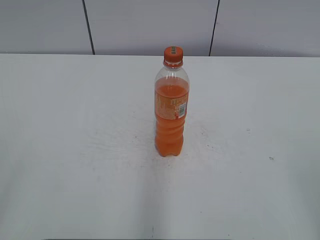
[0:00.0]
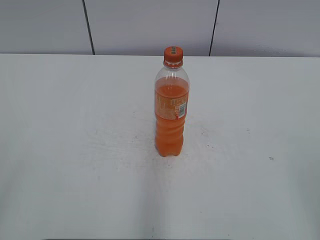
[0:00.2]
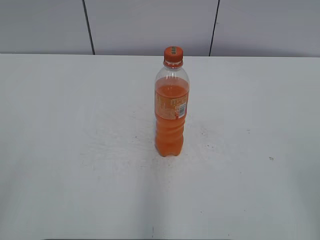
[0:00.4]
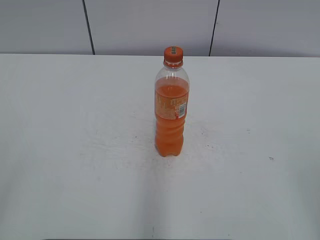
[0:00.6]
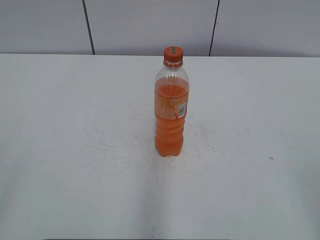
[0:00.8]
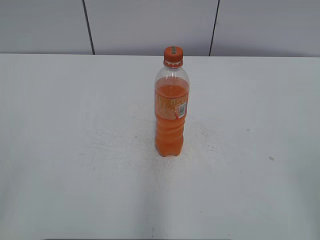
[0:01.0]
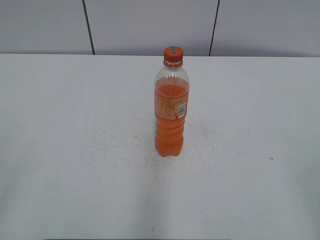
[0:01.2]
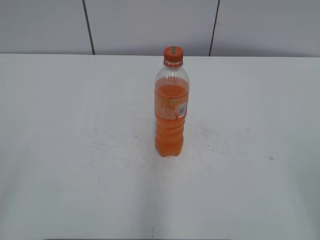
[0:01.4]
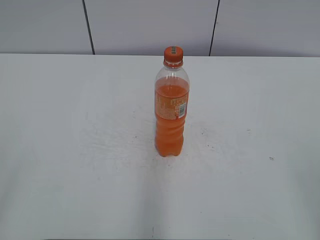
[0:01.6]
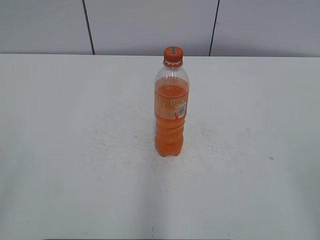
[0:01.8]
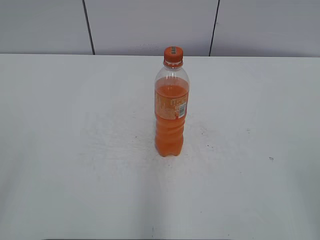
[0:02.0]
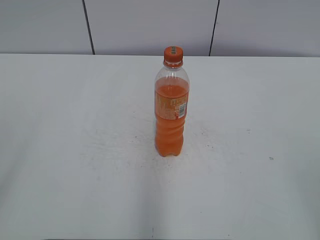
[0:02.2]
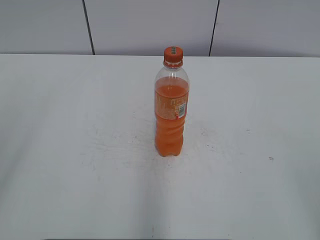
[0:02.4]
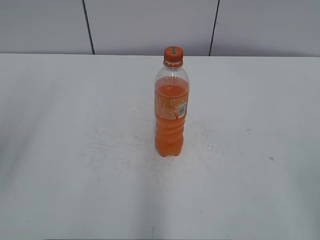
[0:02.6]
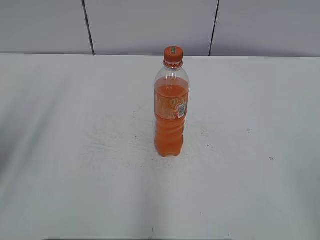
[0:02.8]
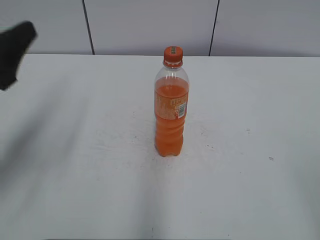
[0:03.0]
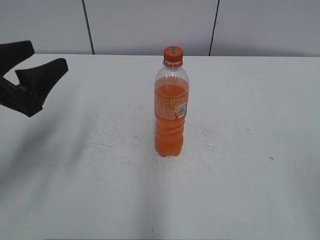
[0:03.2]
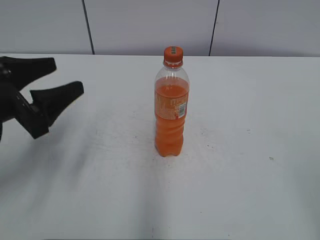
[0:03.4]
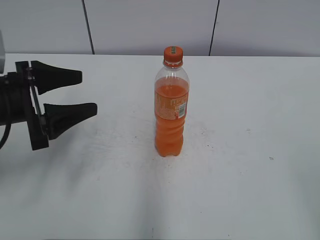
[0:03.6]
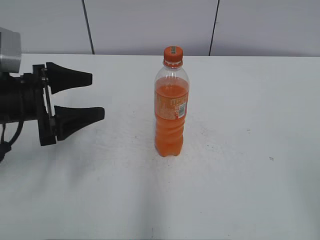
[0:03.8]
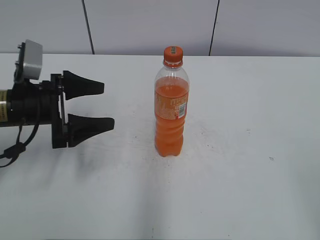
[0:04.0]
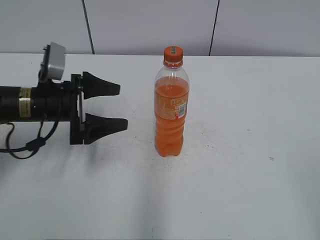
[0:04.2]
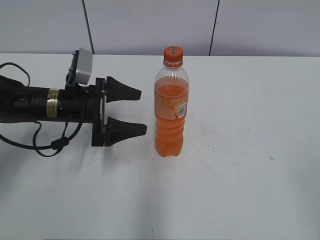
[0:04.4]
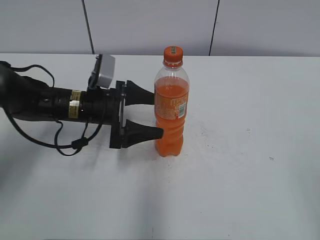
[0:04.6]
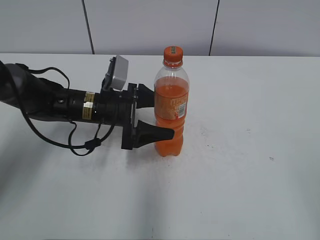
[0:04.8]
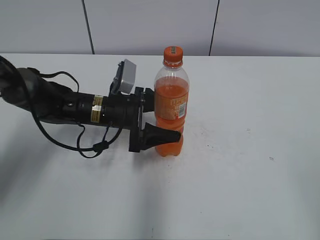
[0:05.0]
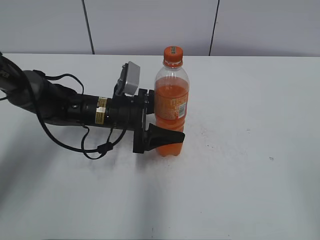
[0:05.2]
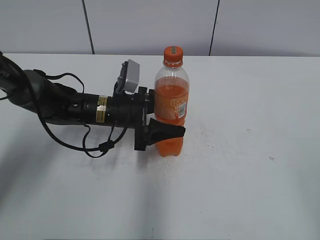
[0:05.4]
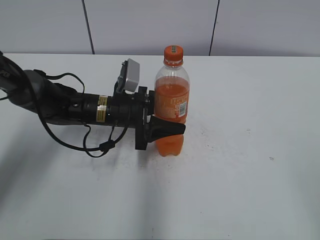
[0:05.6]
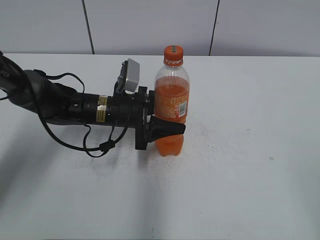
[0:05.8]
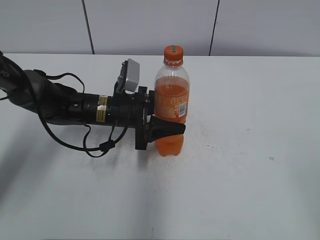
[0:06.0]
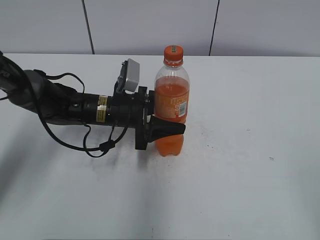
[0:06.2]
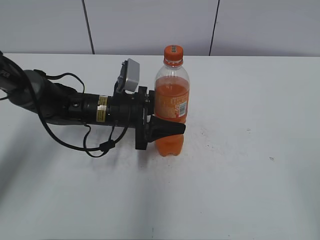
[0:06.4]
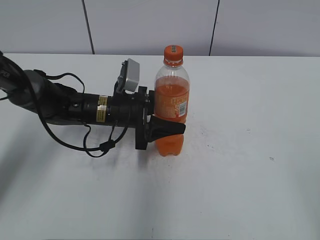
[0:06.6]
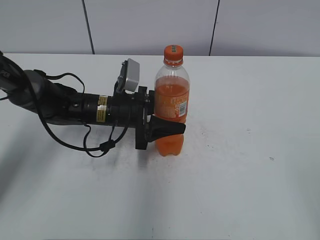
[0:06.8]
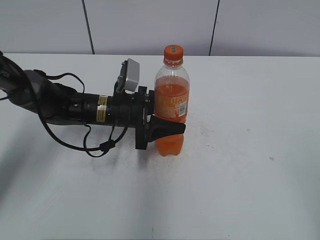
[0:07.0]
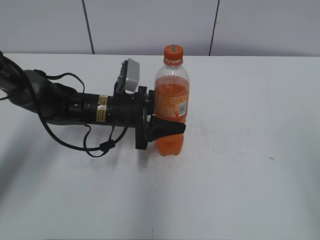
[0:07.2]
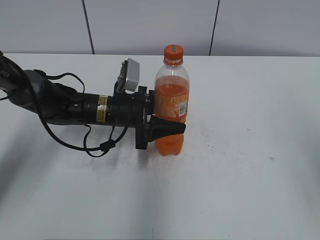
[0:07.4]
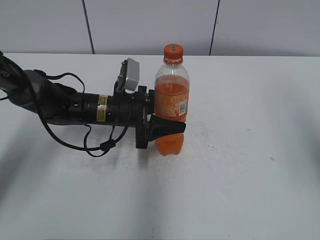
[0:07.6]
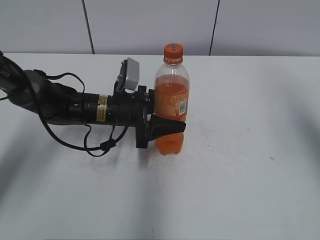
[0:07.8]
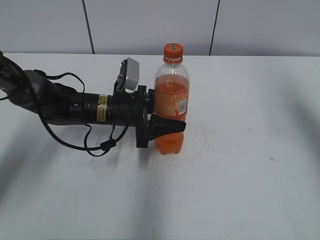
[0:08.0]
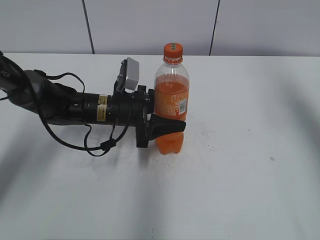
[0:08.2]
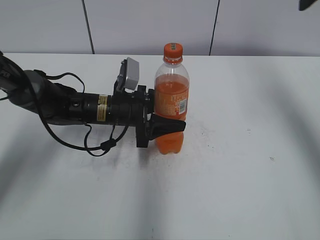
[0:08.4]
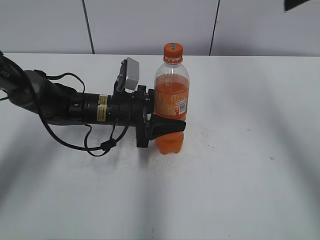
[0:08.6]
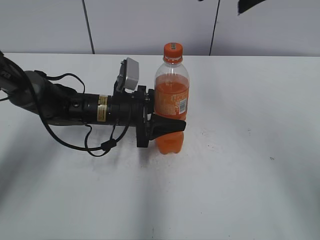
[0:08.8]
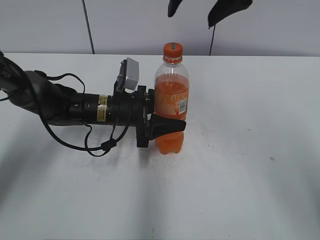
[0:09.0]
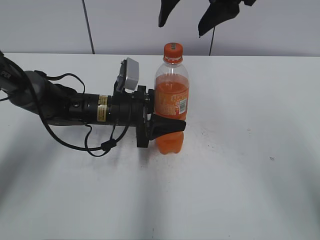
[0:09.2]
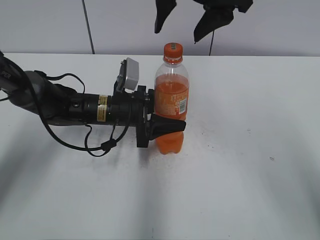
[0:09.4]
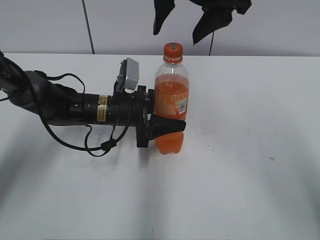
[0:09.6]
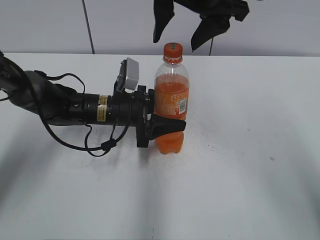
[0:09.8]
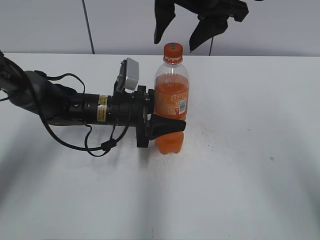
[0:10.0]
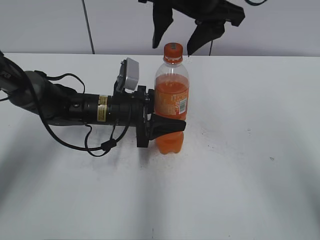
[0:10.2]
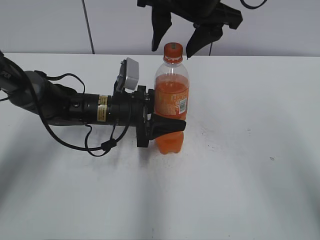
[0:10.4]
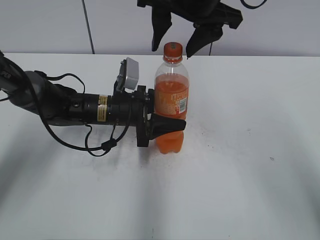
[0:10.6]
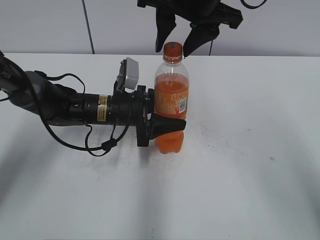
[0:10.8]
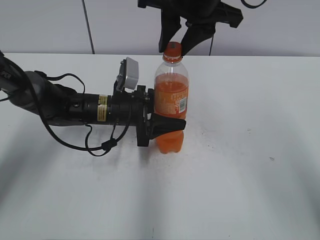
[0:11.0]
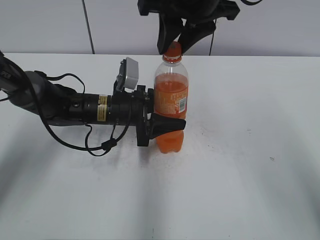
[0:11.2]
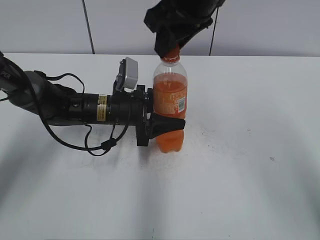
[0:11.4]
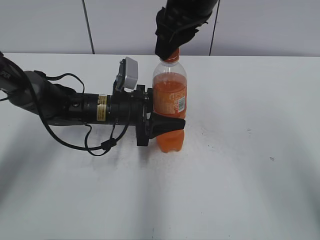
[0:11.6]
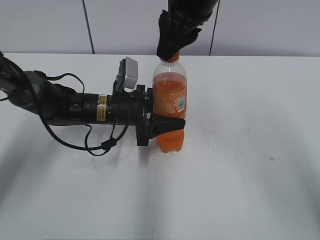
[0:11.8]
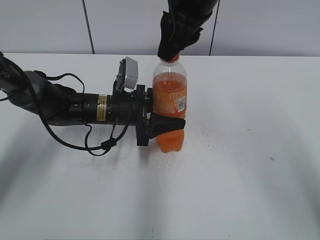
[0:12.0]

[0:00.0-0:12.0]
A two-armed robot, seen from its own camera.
Step, 0:00.0 to 0:05.6: Grab the Mirinda with the left hand.
0:01.6 to 0:03.0: The left gripper travels forward by roughly 20 cm.
0:03.0 to 0:04.4: The left gripper is displaced downward, forward and to the right by approximately 20 cm, and opens.
0:04.4 to 0:06.0: The left gripper is displaced to the right by approximately 10 cm, and closes up.
0:06.0 to 0:07.6: The right gripper heads forward and upward, covering some 20 cm.
0:07.6 to 0:09.0: The right gripper is displaced to the left and forward by some 25 cm.
0:09.0 to 0:10.4: The right gripper ends up some 5 cm from where it was.
0:10.4 to 0:12.0: The right gripper closes its fingers.

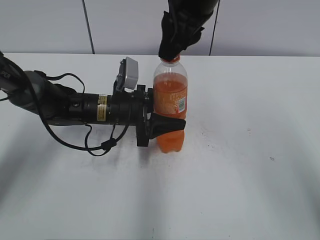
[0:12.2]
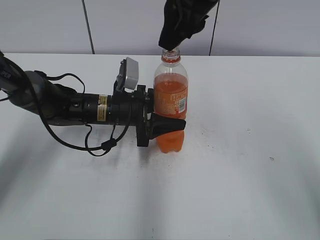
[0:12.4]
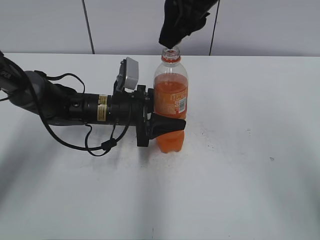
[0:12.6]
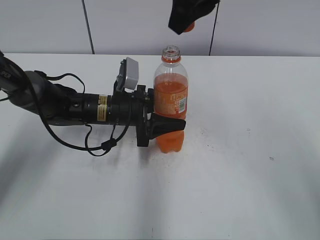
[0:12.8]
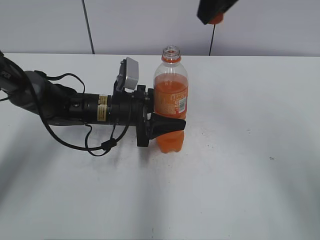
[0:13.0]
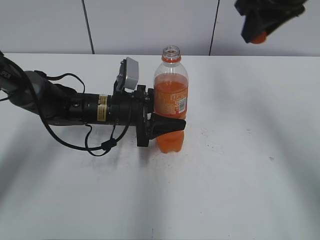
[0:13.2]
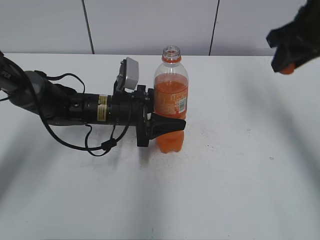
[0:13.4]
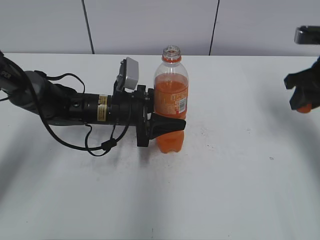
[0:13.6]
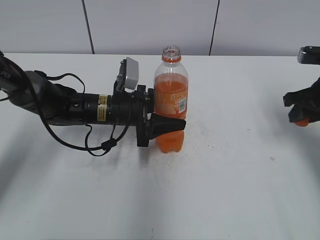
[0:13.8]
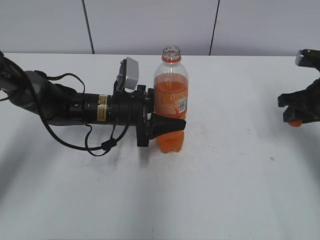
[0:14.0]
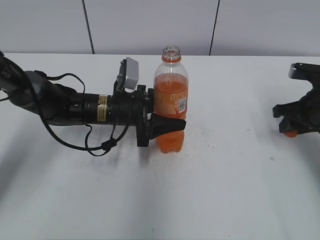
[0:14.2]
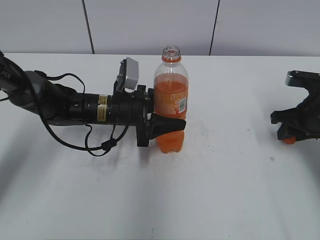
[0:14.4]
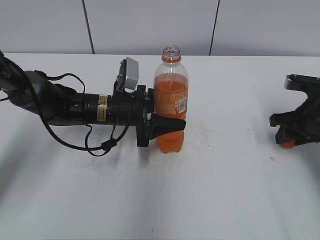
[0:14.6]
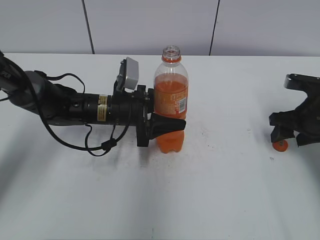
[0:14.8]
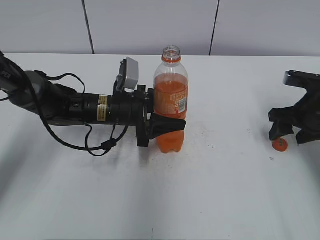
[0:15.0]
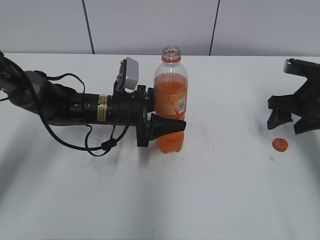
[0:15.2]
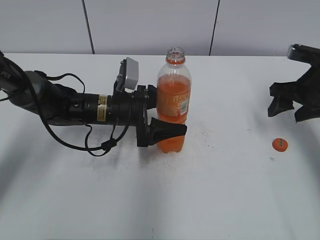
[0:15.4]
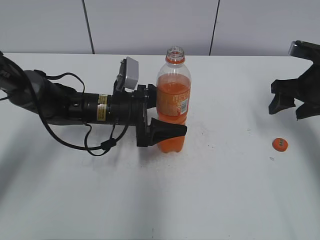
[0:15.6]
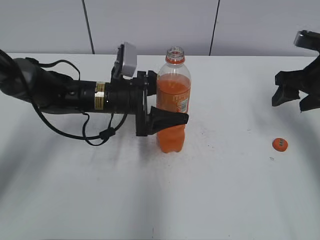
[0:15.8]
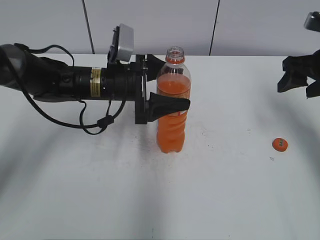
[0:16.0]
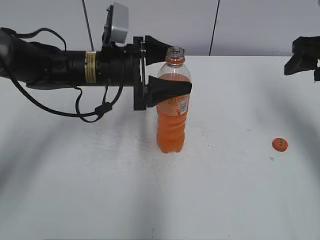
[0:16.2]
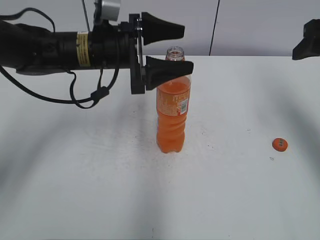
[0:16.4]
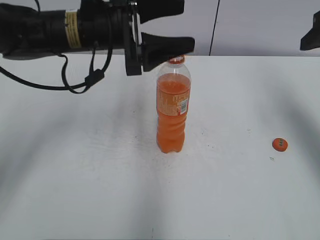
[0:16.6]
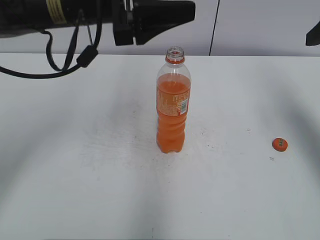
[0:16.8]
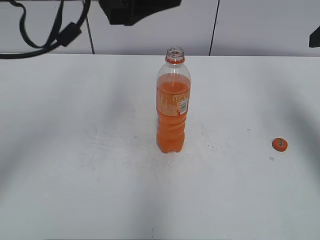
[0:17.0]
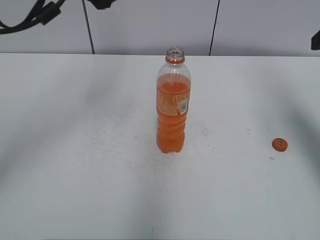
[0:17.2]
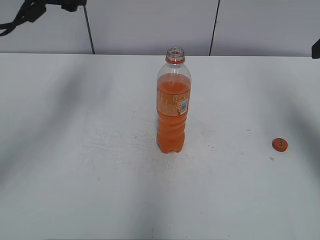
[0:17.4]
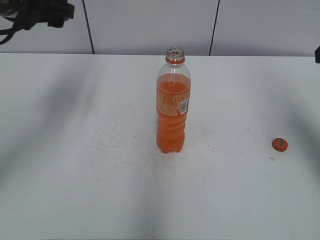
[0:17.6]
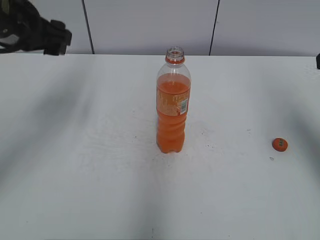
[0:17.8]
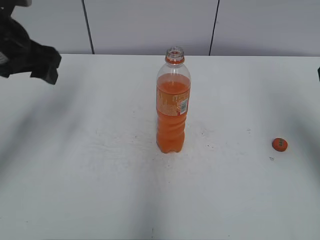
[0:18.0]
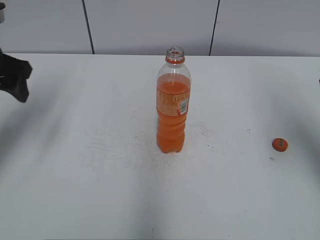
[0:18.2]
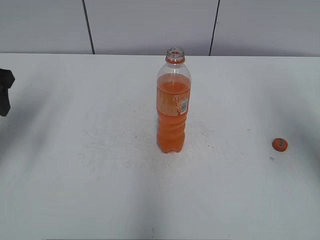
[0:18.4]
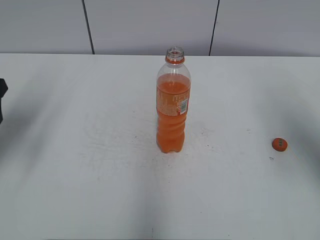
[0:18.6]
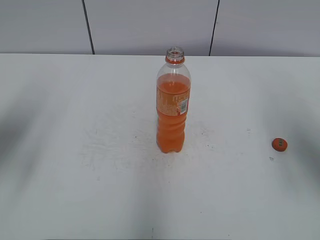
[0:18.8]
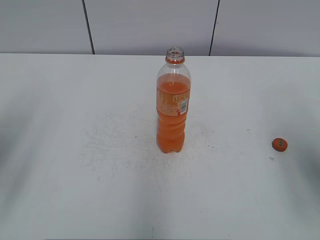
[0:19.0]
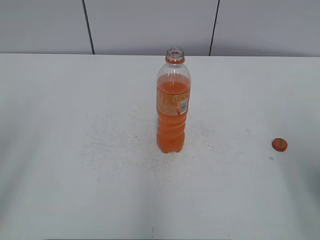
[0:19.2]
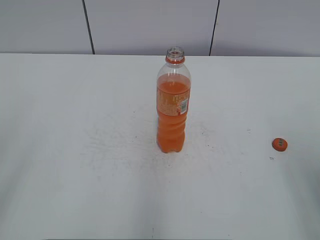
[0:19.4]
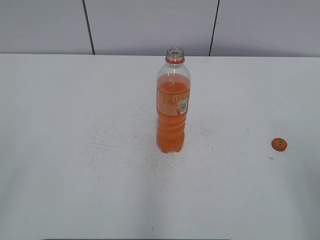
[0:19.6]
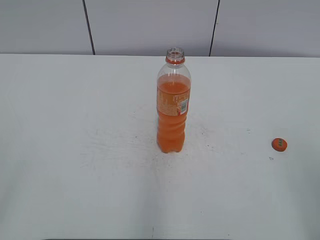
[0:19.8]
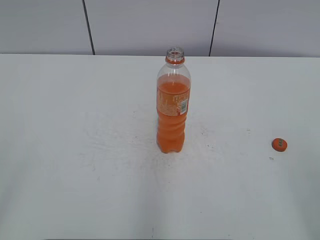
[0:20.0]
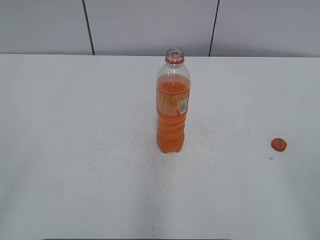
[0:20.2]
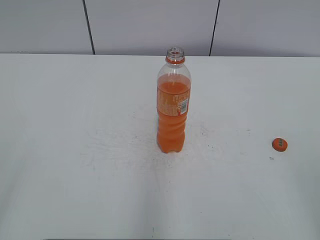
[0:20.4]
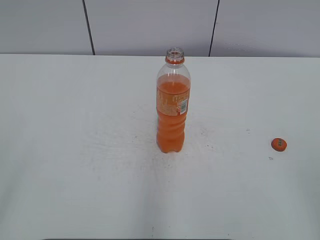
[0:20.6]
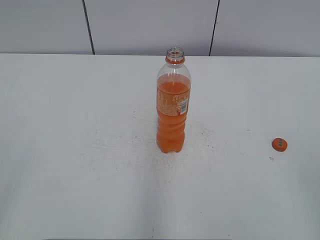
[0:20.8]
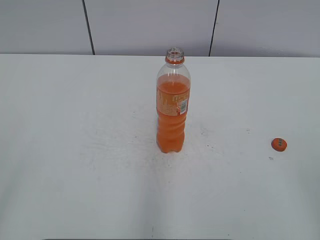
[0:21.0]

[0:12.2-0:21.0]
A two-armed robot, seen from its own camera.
Step, 0:12.8 to 0:14.8: Place the bottle cap on the right.
0:12.2 to 0:13.6: The right gripper is displaced to the right and downward by roughly 25 cm.
0:13.6 to 0:15.2: The right gripper shifts approximately 10 cm downward, and opens up.
0:15.2 to 0:16.6: Both grippers move upward, some 15 cm. The left gripper opens.
0:16.6 to 0:18.0: The left gripper shifts some 15 cm to the left. Meanwhile the right gripper travels backward by approximately 5 cm.
0:18.0 to 0:19.6: The left gripper travels backward by about 30 cm. Meanwhile the right gripper is displaced backward by about 15 cm.

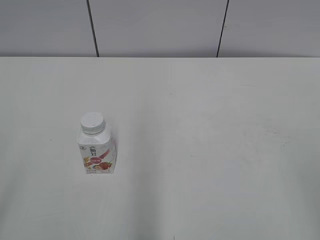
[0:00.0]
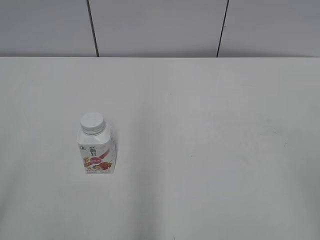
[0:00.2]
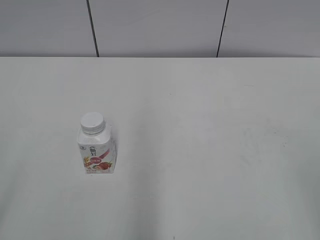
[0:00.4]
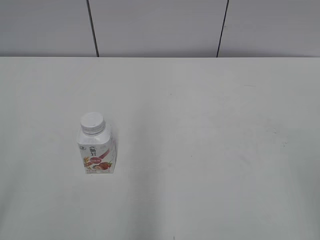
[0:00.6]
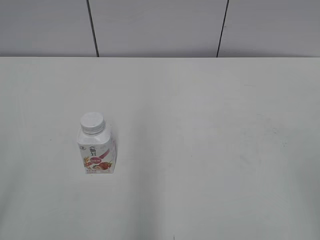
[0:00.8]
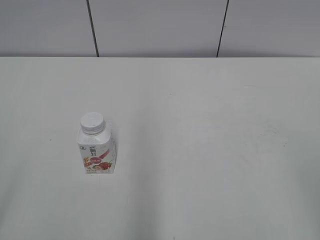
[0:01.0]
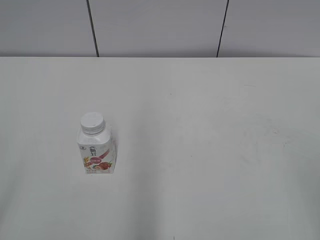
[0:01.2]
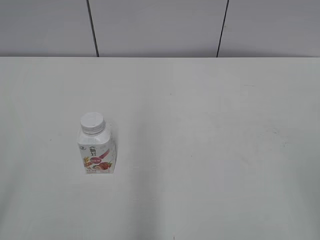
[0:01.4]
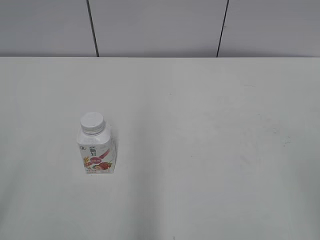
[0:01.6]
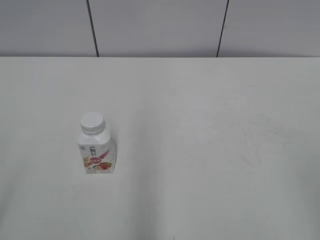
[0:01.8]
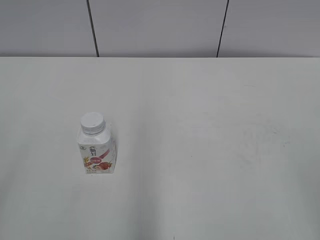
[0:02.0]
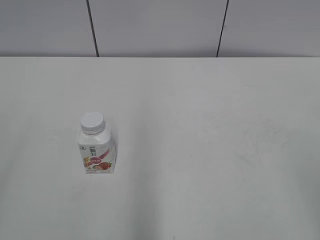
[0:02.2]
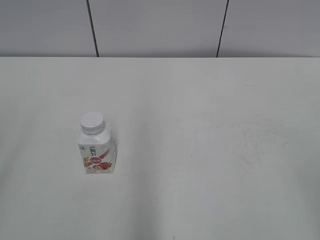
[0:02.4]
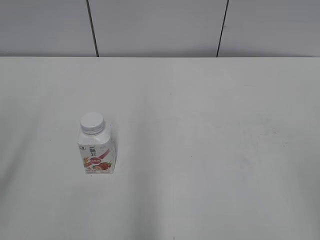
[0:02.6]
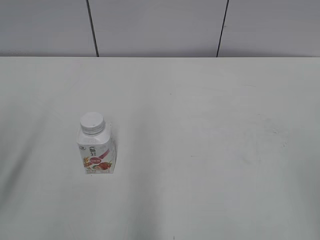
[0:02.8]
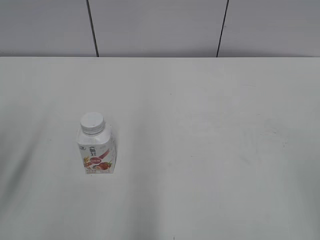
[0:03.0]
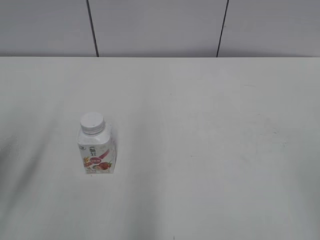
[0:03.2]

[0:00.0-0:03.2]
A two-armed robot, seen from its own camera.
0:01.6 to 0:03.2: The left gripper goes roughly 15 cm forward.
